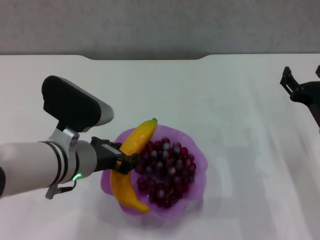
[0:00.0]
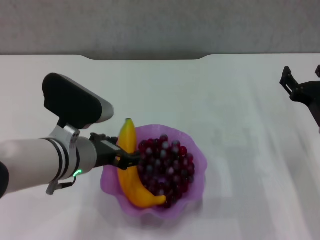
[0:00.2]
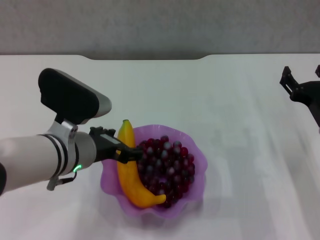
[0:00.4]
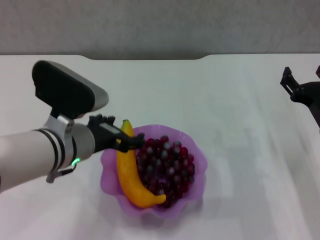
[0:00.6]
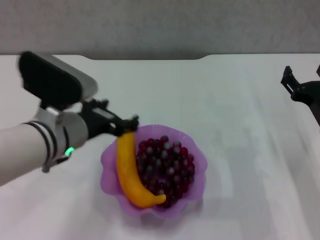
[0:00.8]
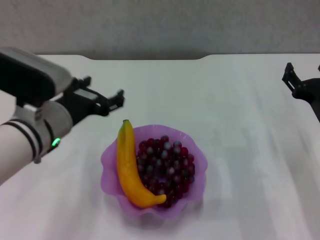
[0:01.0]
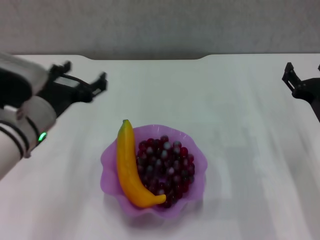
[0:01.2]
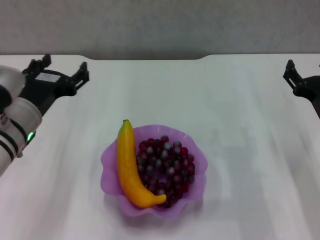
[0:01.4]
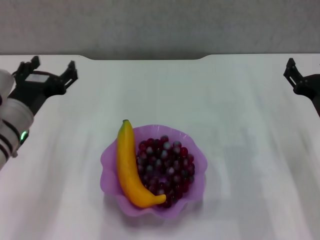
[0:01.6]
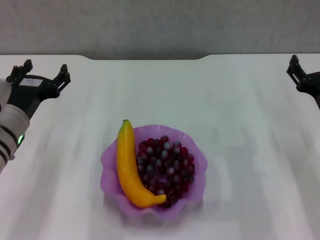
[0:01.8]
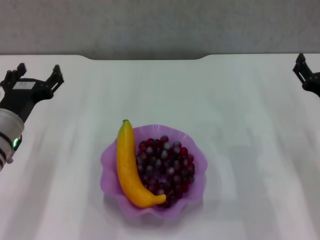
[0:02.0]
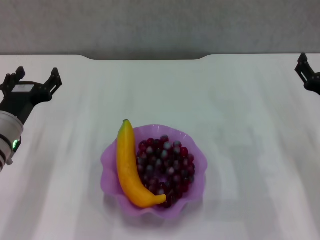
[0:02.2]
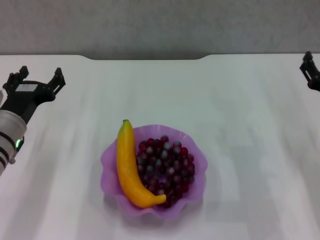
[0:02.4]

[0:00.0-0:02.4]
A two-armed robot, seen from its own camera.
0.0 to 1.2 s: The left gripper heads to the left, covering some 5 cm, and opens.
1.2 to 2.4 s: The left gripper moves downward and to the left, roughly 10 cm.

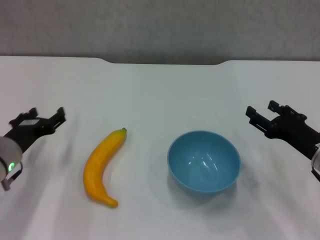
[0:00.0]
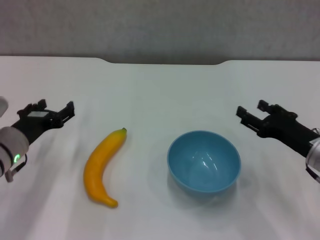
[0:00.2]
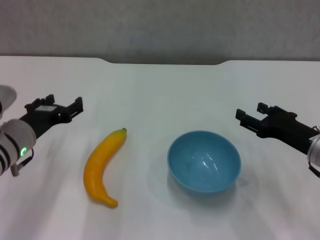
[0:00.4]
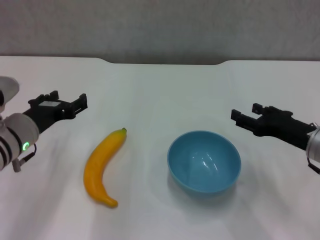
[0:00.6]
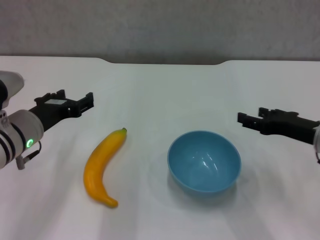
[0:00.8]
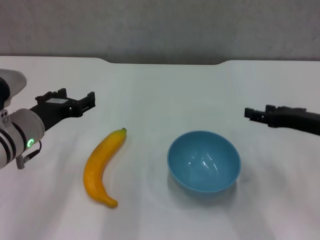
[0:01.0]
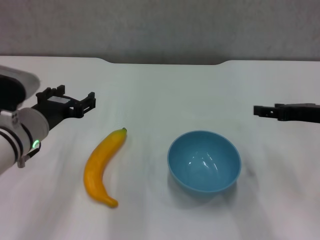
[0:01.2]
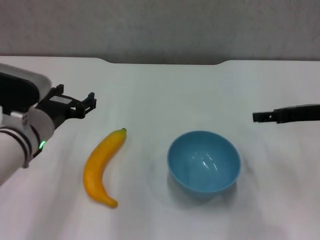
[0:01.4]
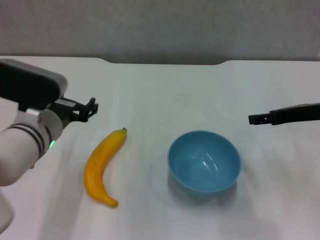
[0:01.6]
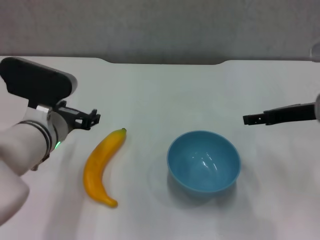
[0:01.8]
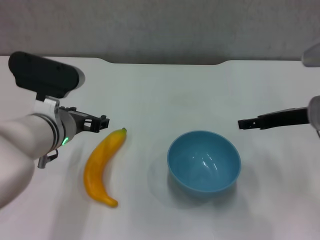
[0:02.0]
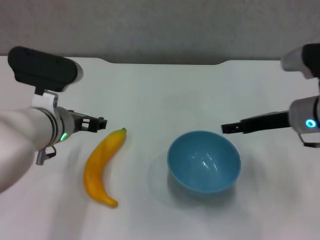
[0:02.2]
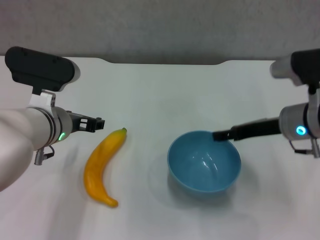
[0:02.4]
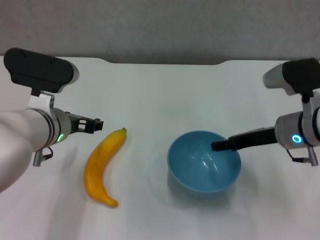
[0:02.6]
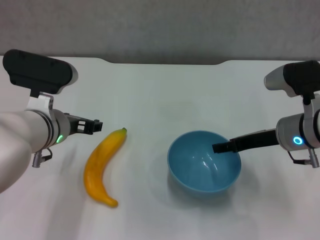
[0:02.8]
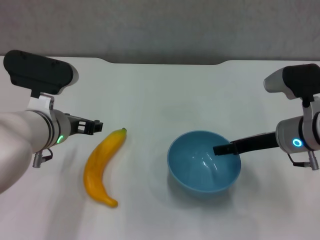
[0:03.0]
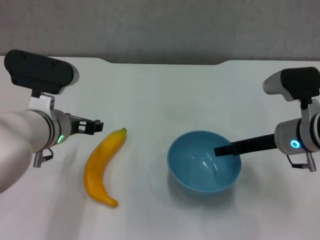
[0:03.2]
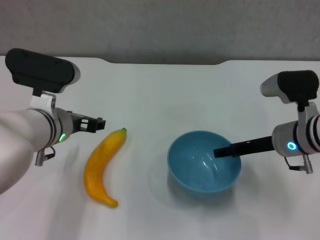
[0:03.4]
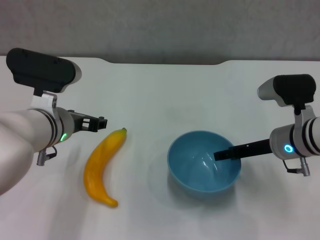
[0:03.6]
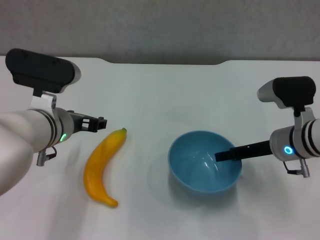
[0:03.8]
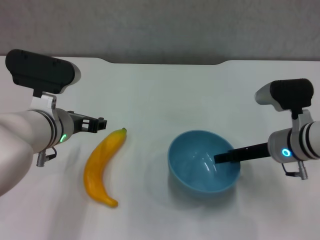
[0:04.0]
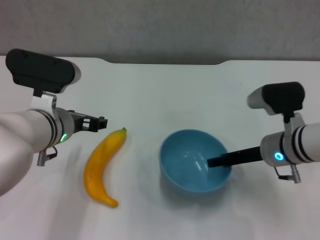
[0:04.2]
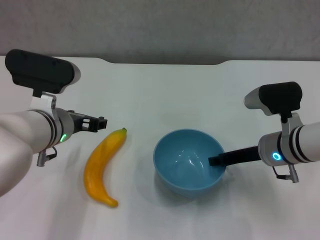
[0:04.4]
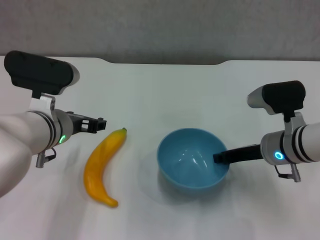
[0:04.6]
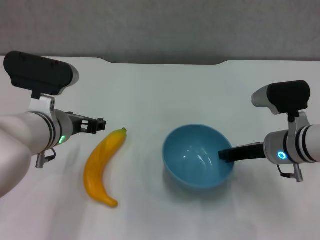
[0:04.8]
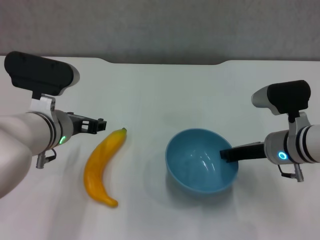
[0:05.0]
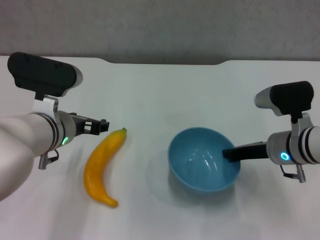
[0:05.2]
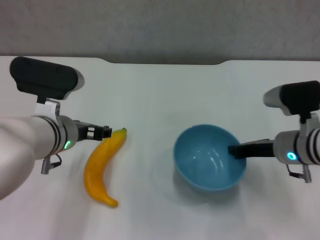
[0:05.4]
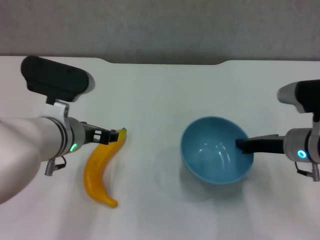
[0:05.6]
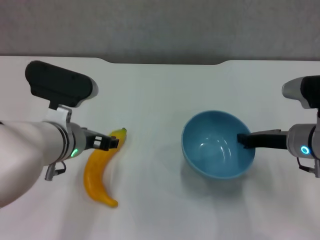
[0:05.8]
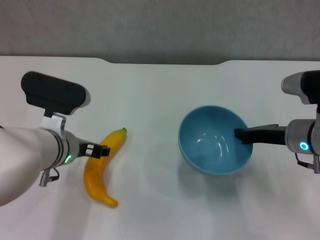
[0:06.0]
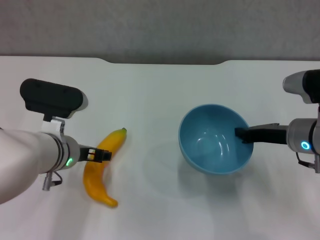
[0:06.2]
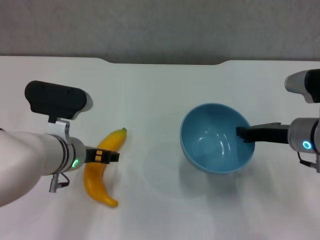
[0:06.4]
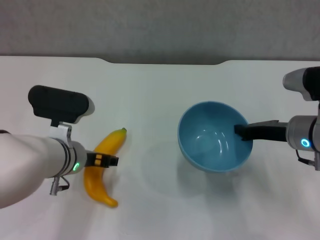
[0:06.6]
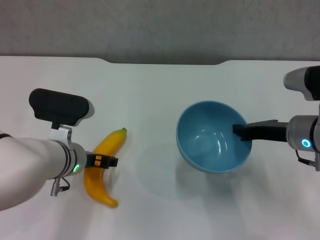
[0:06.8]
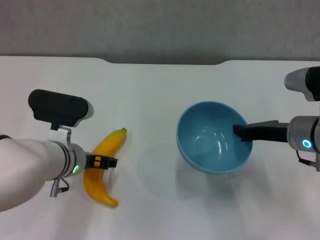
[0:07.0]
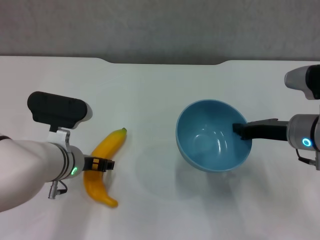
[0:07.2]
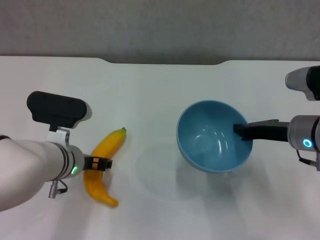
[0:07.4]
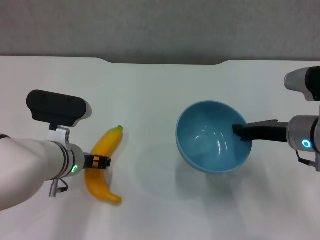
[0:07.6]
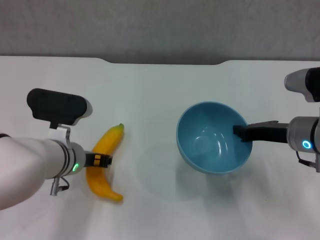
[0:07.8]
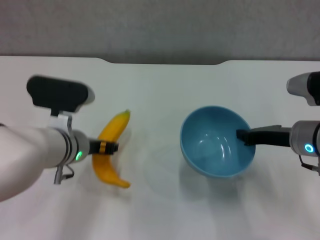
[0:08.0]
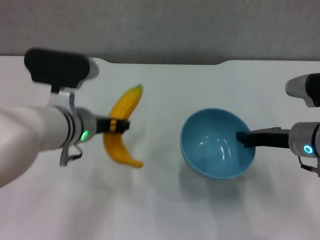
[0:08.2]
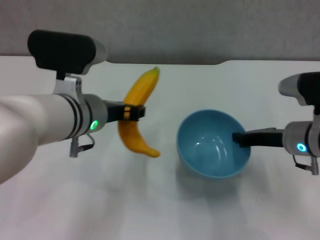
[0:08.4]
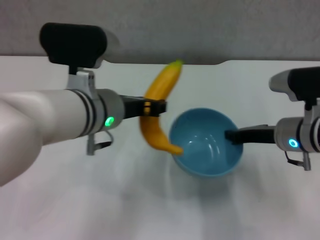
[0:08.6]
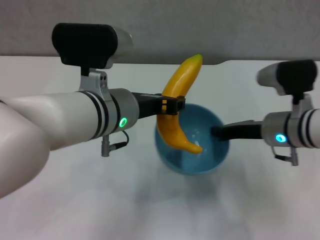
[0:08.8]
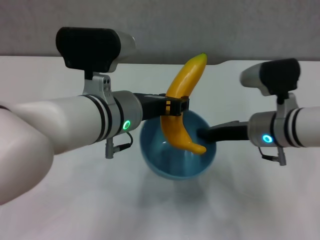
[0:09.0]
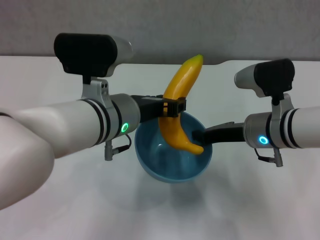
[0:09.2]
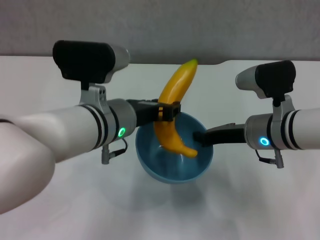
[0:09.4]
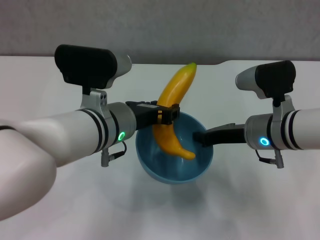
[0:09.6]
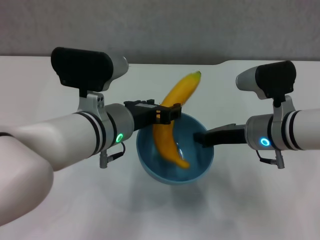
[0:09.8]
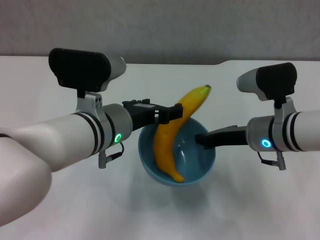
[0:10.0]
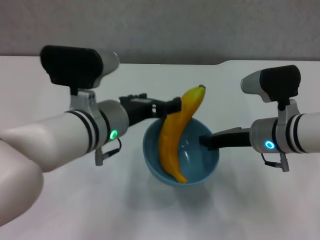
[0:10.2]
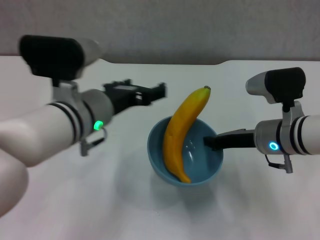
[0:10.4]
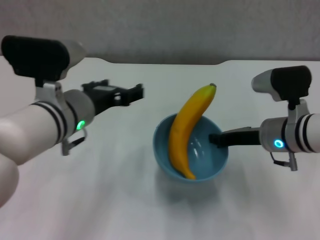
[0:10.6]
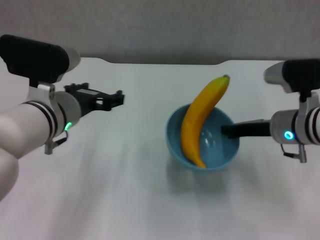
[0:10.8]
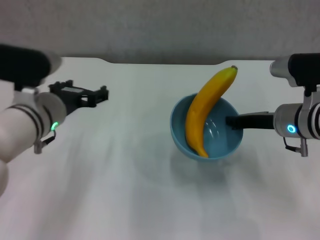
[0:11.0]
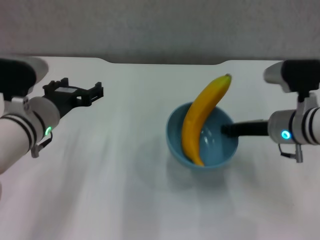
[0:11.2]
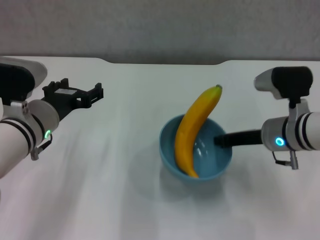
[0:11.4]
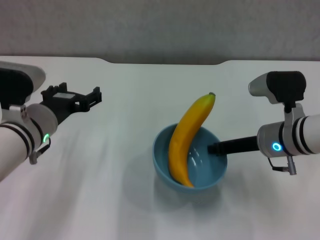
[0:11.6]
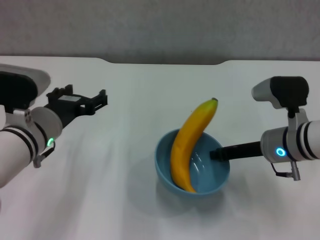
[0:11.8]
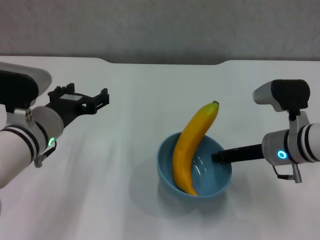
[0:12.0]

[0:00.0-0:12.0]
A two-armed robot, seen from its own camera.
Step, 0.0 to 4.6 s: Grasp the blue bowl with right gripper.
Step, 4.8 to 5.8 s: Lift the blue bowl with right gripper.
Step, 6.0 to 7.4 s: Grasp the banana with left gripper.
Step, 7.8 to 10.2 s: Place the banana in the blue bowl with left gripper.
0.0 to 1.6 s: The right gripper is displaced upward and forward by roughly 10 cm; the left gripper goes about 10 cm to the right and upward.
1.6 to 3.0 s: The right gripper goes some 5 cm to the left.
3.0 to 4.4 s: The grippers stay close to where they were, moving slightly.
4.4 to 6.0 s: The right gripper closes.
6.0 to 7.6 s: The left gripper closes its fingers.
7.6 to 9.0 s: The left gripper heads upward and to the right, covering approximately 15 cm. Meanwhile the right gripper shifts roughly 5 cm to the left.
9.0 to 10.4 s: The left gripper opens.
10.4 to 12.0 s: The left gripper goes approximately 10 cm to the left and downward.

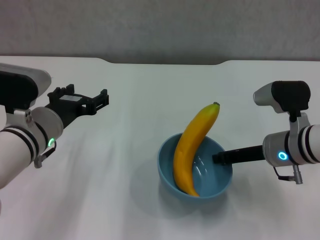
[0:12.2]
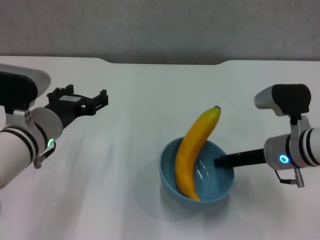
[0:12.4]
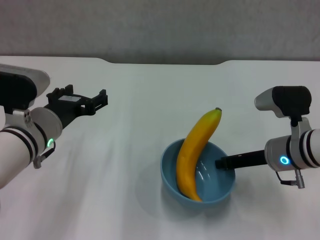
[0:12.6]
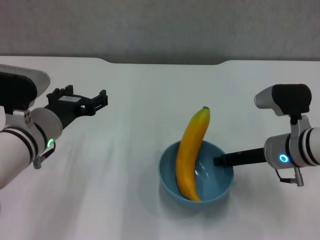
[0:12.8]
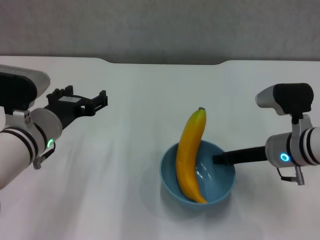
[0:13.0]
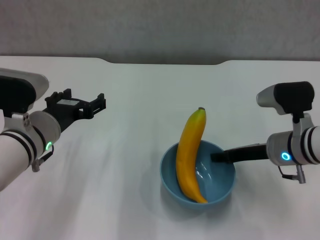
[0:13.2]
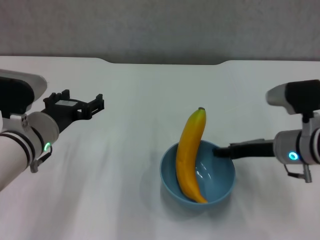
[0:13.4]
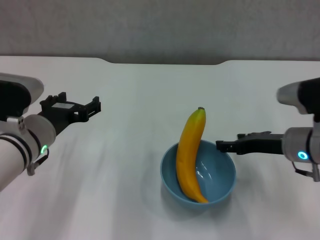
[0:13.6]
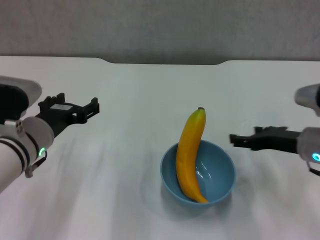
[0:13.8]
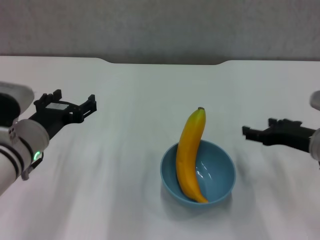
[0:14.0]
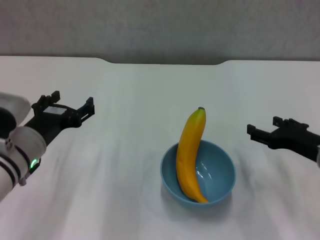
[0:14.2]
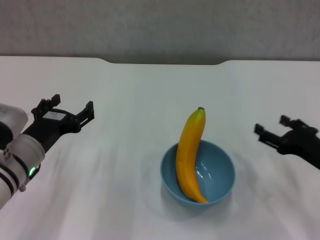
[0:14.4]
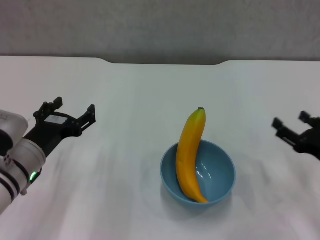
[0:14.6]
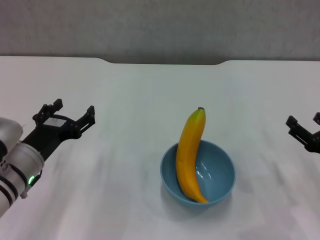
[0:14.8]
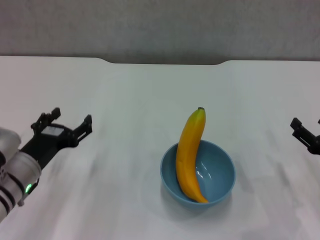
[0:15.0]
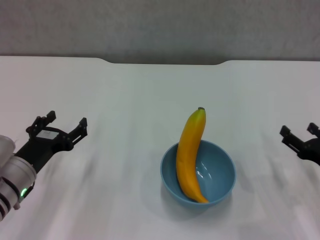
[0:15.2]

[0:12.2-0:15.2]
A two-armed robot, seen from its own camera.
12.2 to 13.8 s: The right gripper ends up roughly 5 cm from where it was, and opens up.
13.8 to 15.2 s: The right gripper heads backward, downward and to the right, covering roughly 10 cm. The left gripper heads downward, covering roughly 5 cm.

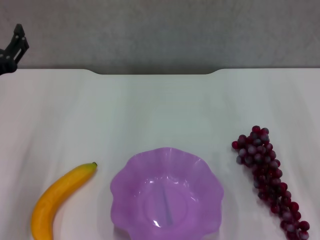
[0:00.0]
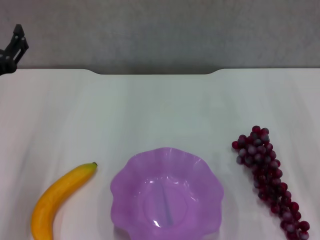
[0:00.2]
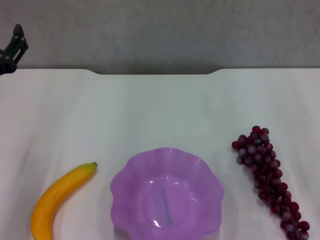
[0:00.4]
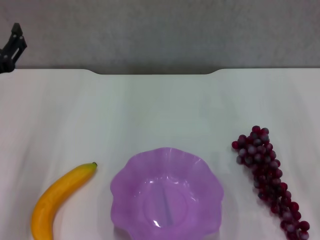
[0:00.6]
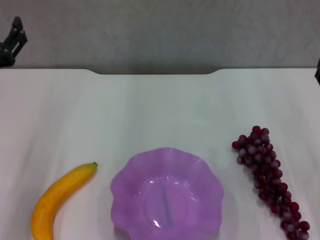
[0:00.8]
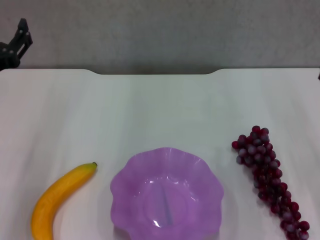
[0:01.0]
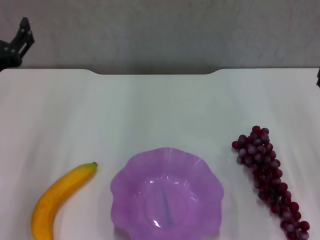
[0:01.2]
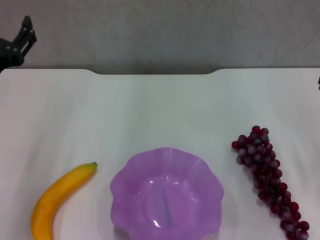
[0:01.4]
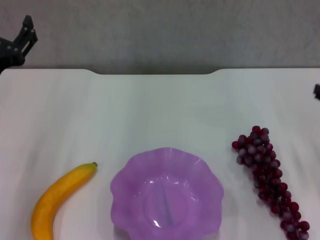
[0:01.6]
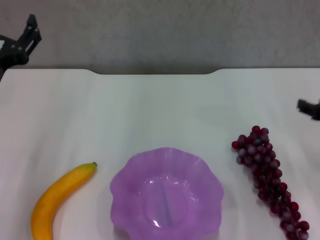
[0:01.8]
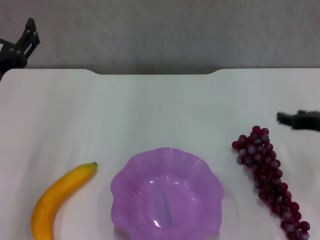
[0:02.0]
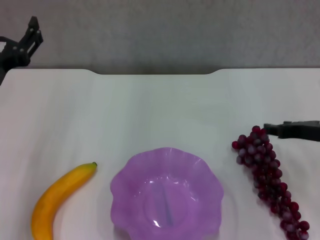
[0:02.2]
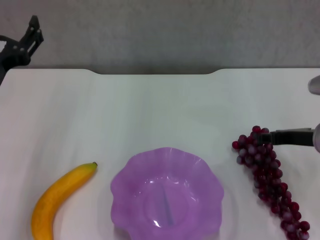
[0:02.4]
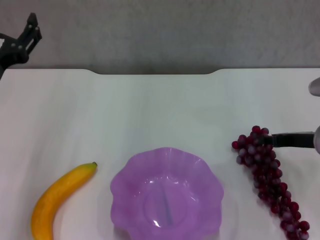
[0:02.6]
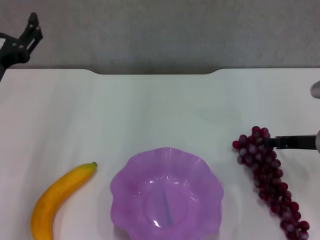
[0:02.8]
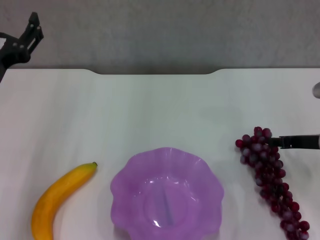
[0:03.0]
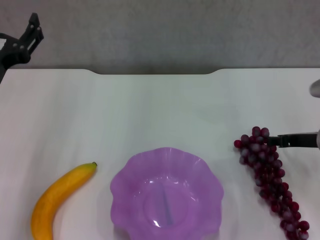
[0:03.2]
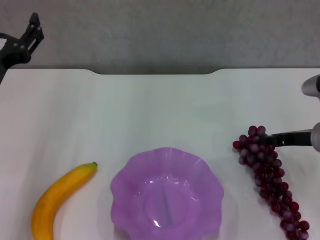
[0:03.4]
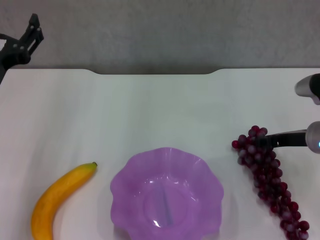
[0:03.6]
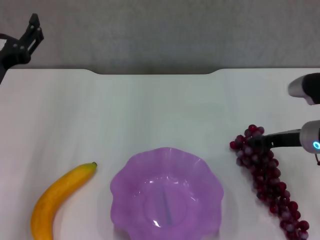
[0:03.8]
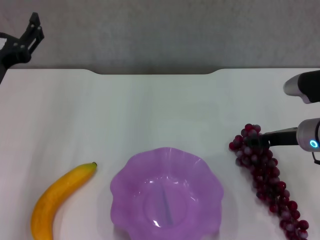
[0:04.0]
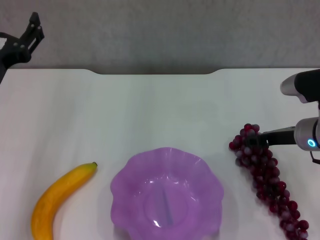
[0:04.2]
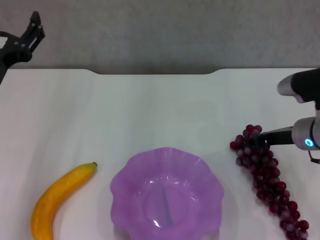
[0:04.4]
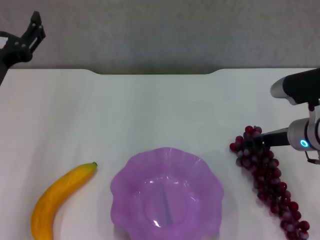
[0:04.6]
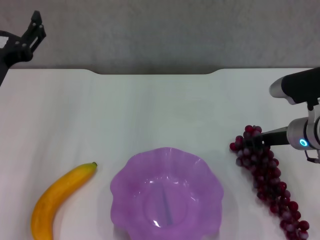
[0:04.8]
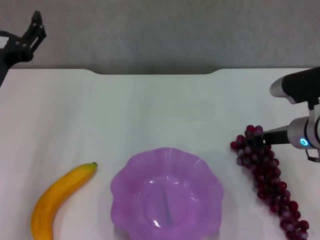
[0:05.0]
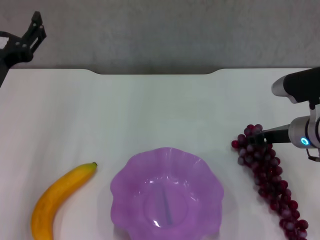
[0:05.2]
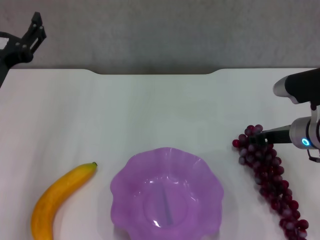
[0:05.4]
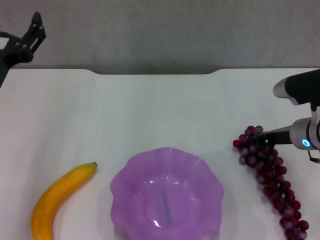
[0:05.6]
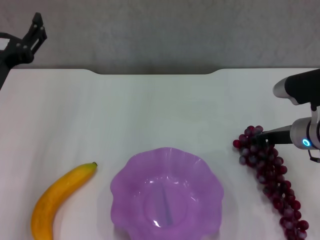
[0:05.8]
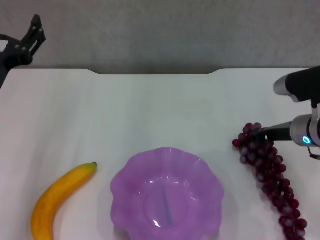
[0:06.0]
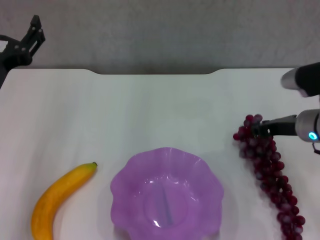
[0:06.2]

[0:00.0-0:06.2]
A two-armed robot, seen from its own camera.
Step, 0.0 to 5.8 s: Grasp the grape with right gripper.
1.6 to 3.2 s: The right gripper goes some 10 cm downward and forward.
3.2 to 4.6 s: The grippers stay close to where they were, moving slightly.
4.6 to 6.2 s: The right gripper closes its fingers.
